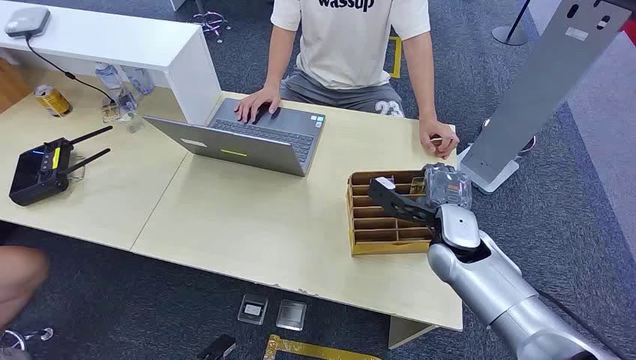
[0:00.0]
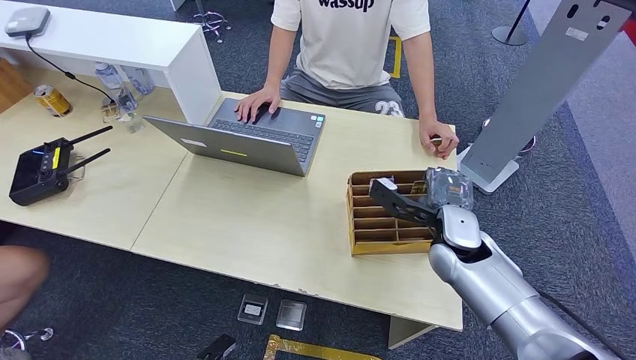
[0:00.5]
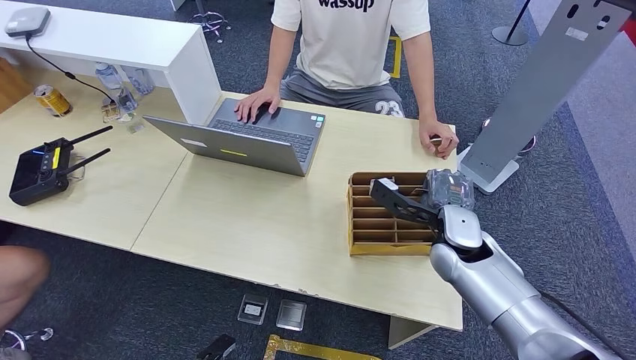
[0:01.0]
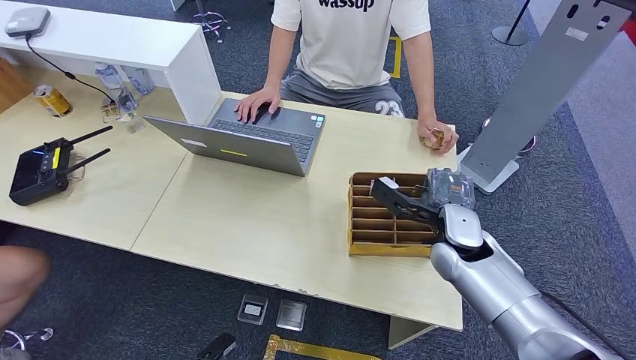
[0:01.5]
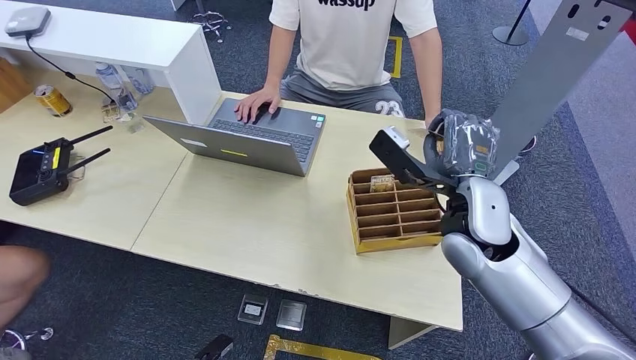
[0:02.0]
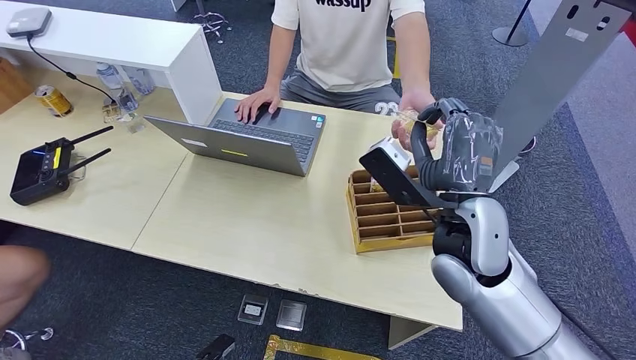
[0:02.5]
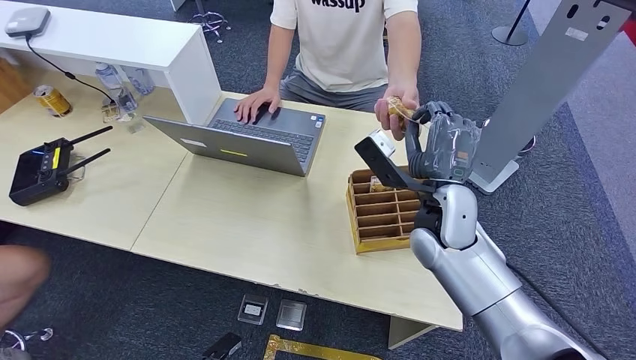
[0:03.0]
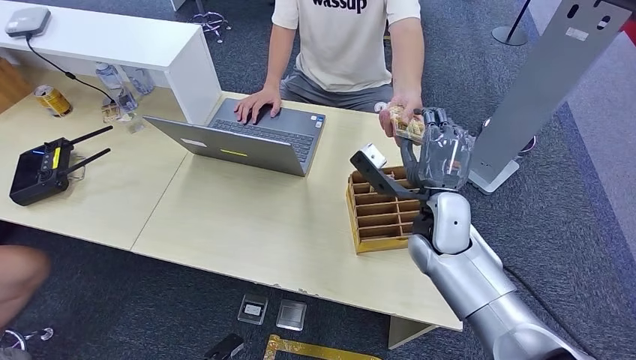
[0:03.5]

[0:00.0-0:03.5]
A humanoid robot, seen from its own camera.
Step, 0:02.5 to 0:03.5: Hand the key card to the target.
0:02.0 to 0:03.5: The right hand shifts some 5 cm downward.
